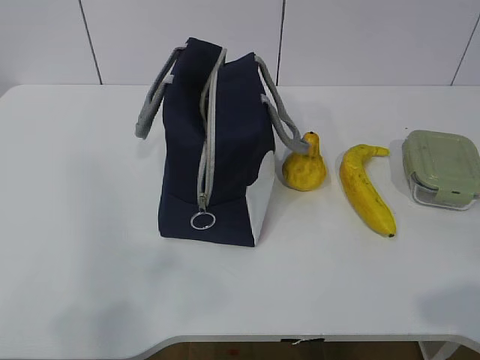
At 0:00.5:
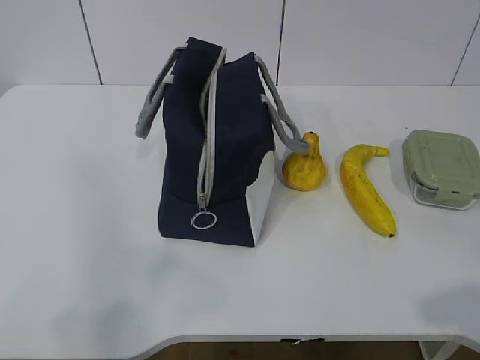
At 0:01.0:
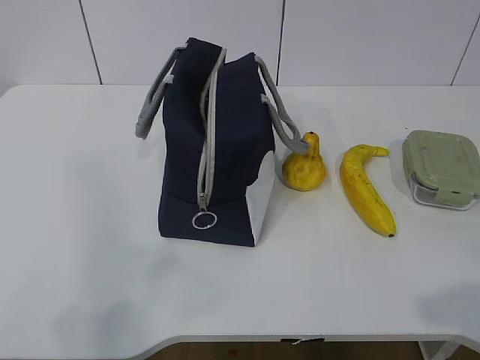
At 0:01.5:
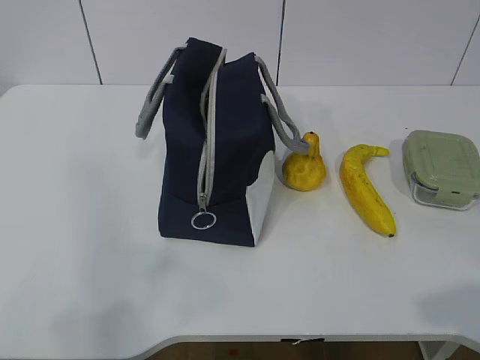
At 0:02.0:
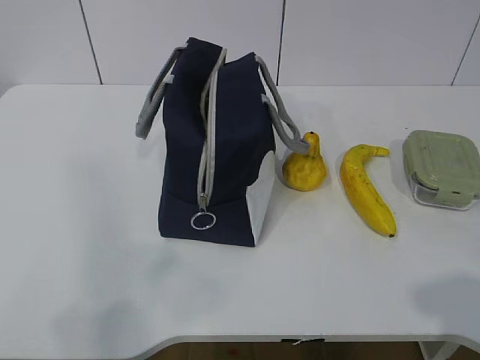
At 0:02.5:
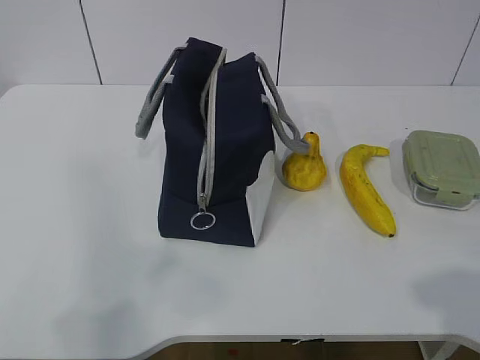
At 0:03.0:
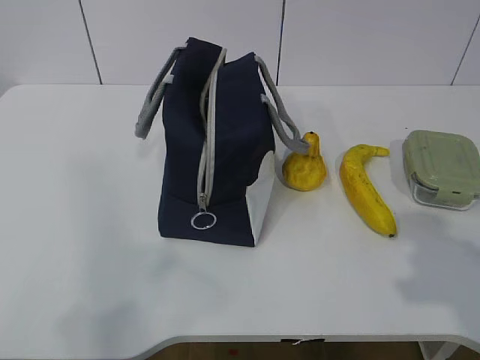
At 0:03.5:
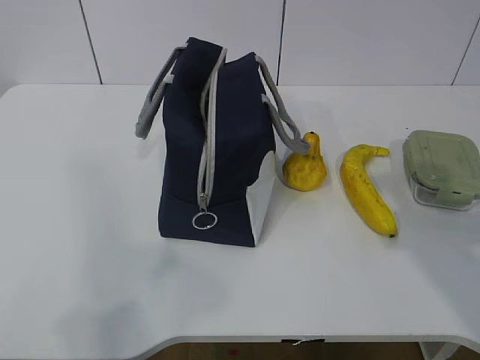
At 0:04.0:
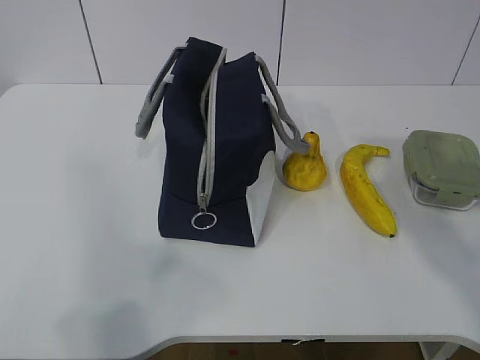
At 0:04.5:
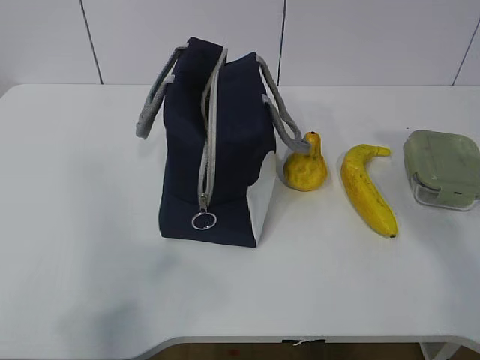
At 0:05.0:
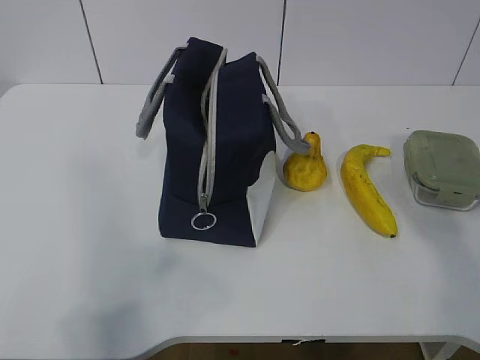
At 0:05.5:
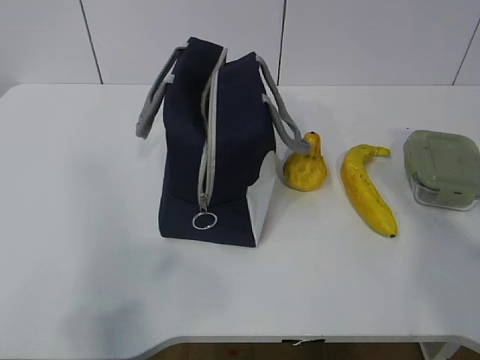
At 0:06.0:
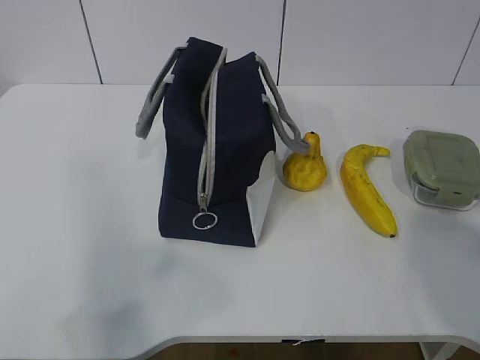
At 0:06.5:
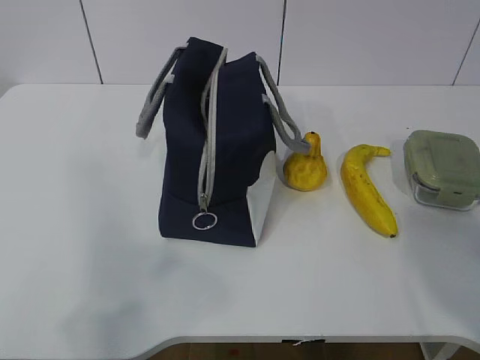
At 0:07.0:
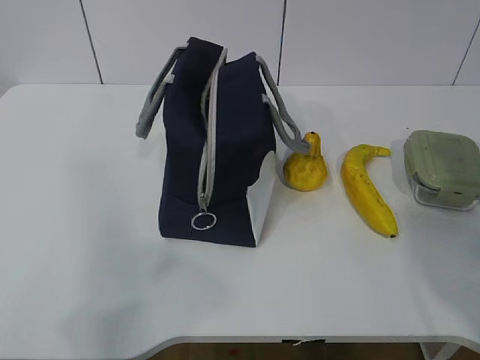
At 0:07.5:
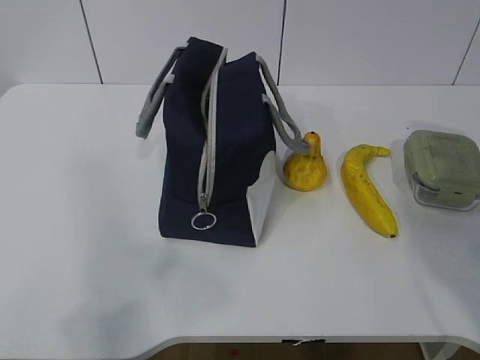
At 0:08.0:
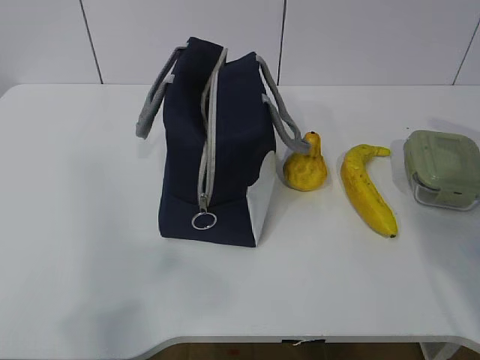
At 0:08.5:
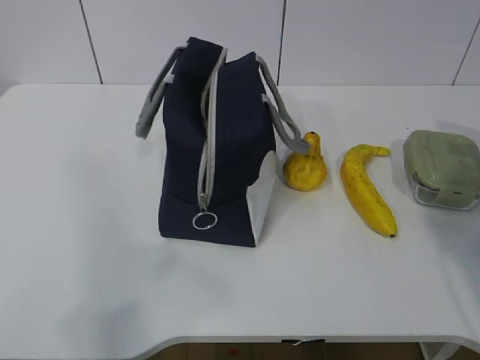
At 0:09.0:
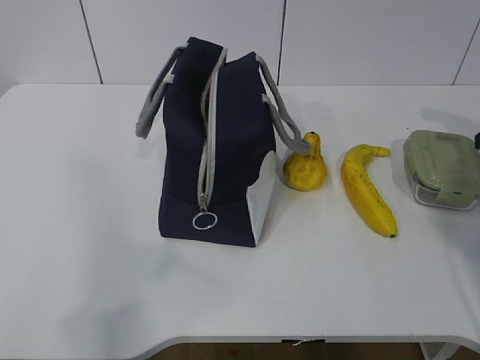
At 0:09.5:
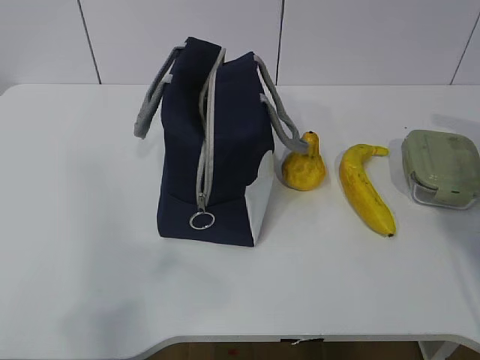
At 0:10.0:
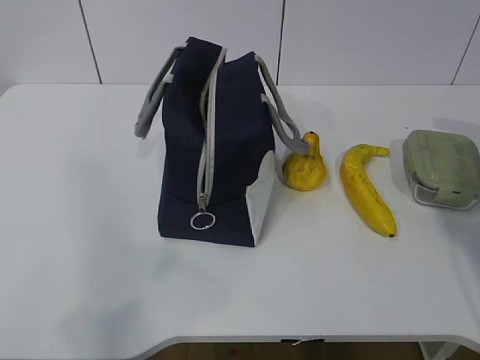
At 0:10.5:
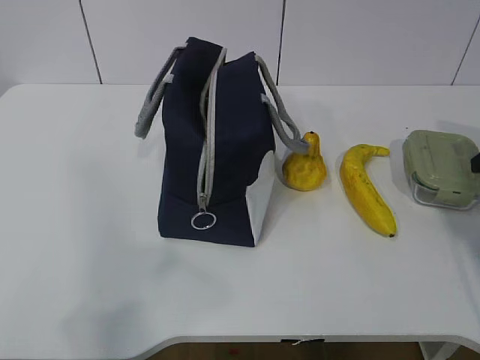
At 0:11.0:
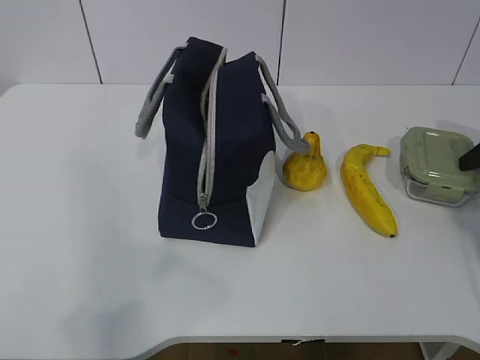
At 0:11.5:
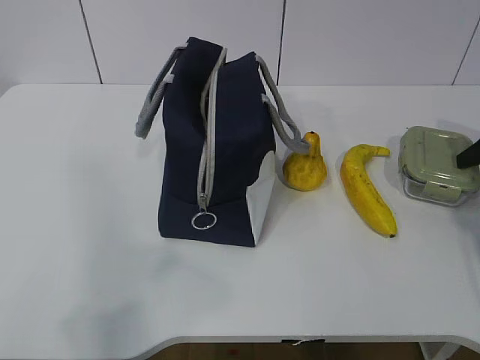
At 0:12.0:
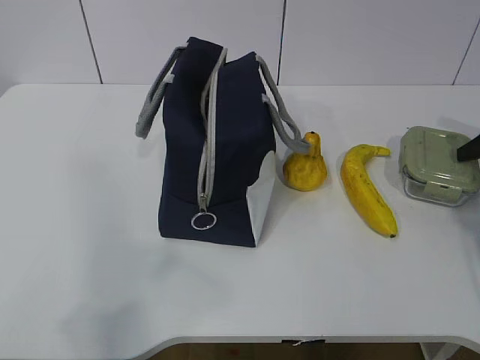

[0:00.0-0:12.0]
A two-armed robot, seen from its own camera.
0:02.0 to 0:04.0: The right gripper goes about 20 cm forward.
0:04.0 to 0:06.0: The right gripper heads forward, to the right and downward, covering about 10 cm.
0:08.0 to 0:10.0: The right gripper ends up roughly 5 cm from where it was.
0:10.0 to 0:12.0: There are only small adjustments of the grippers.

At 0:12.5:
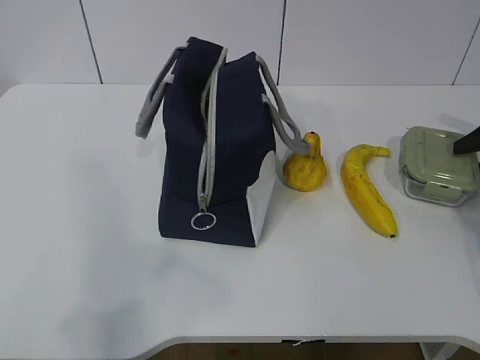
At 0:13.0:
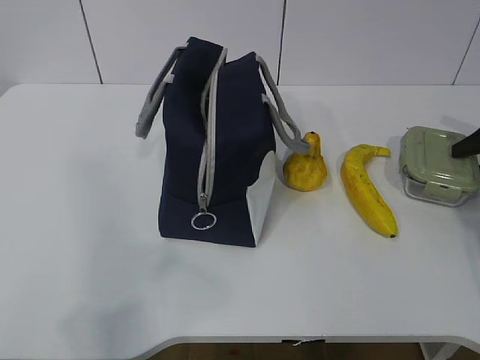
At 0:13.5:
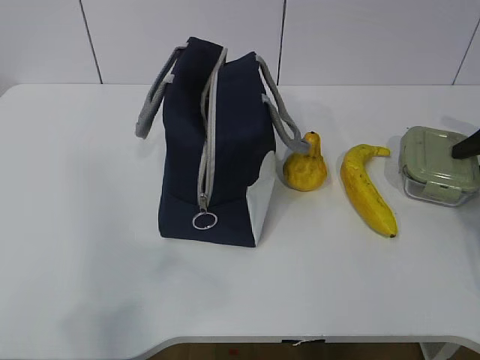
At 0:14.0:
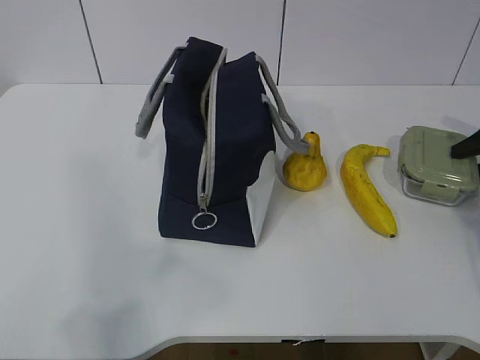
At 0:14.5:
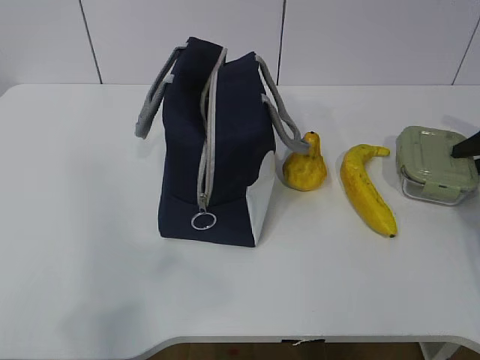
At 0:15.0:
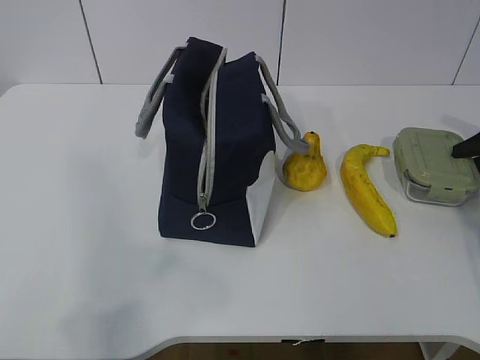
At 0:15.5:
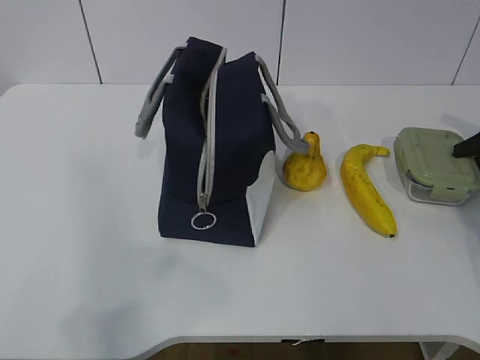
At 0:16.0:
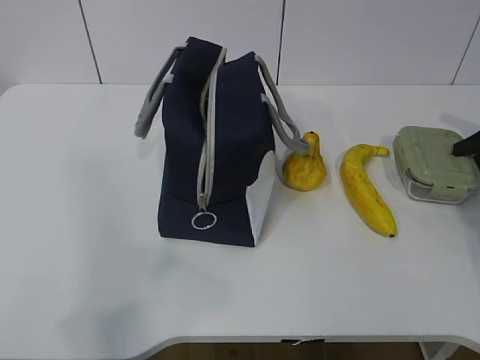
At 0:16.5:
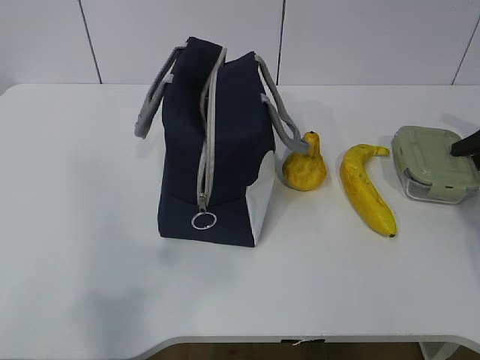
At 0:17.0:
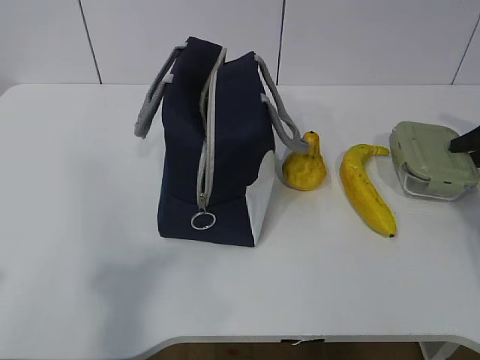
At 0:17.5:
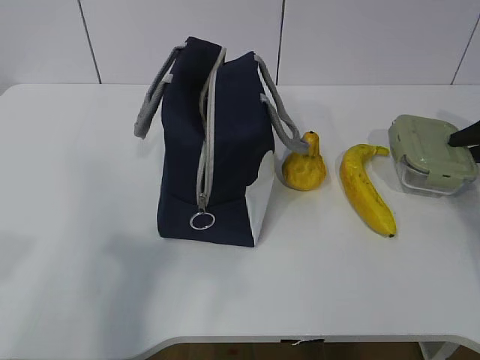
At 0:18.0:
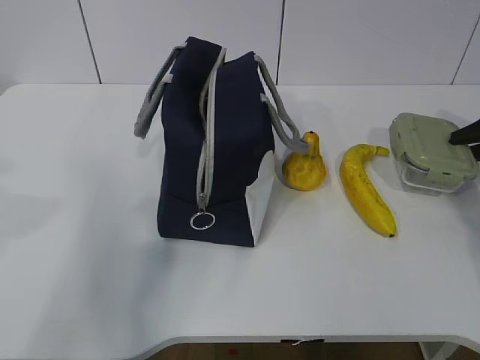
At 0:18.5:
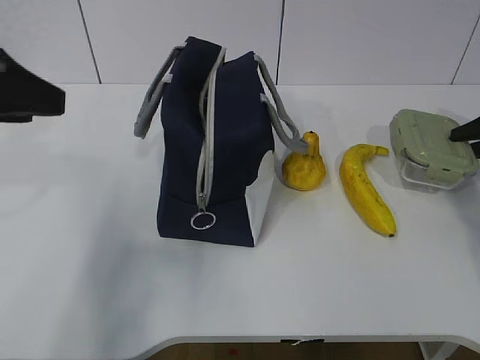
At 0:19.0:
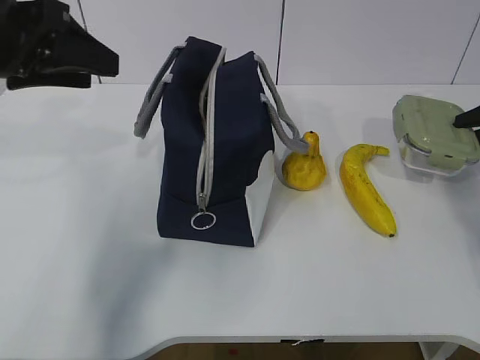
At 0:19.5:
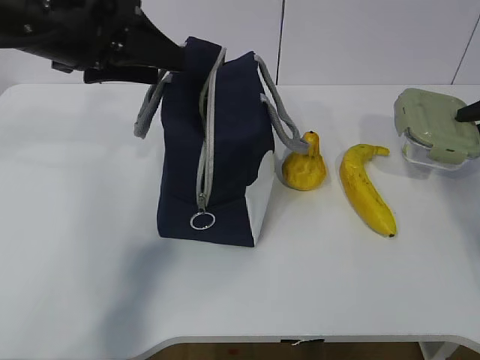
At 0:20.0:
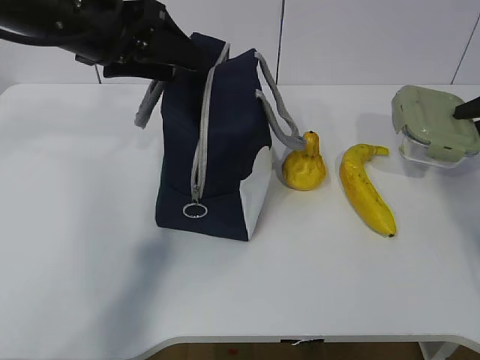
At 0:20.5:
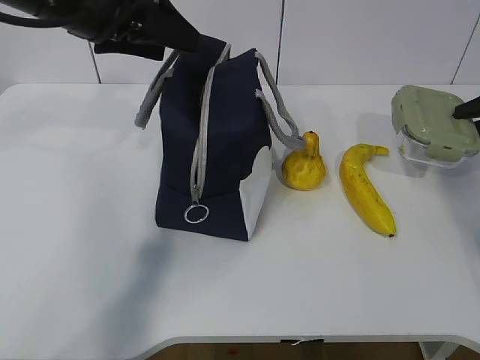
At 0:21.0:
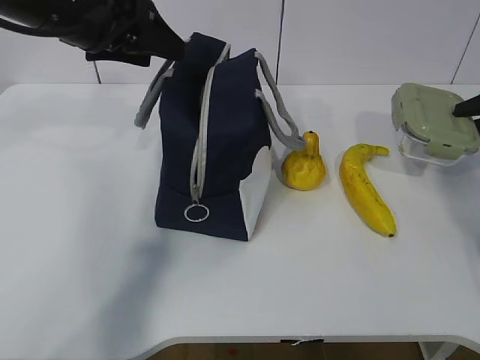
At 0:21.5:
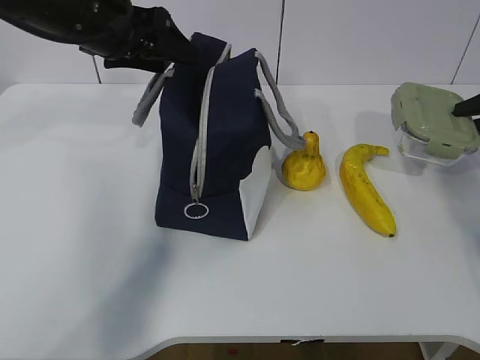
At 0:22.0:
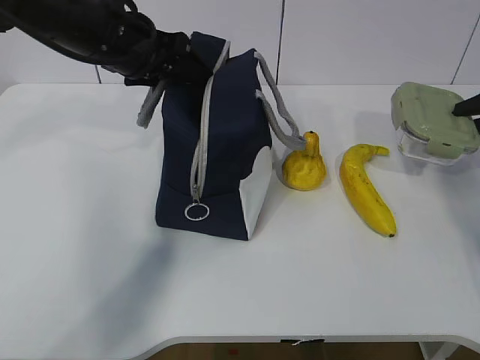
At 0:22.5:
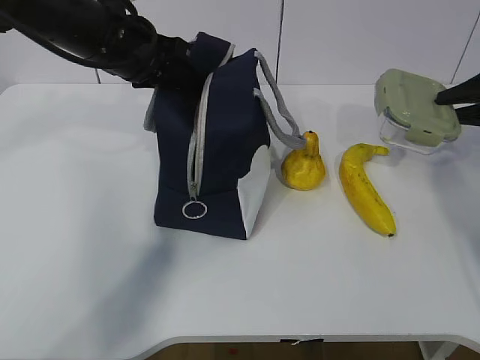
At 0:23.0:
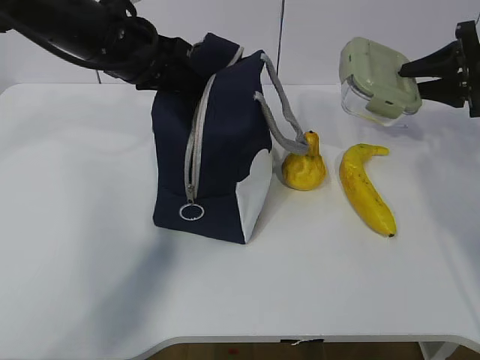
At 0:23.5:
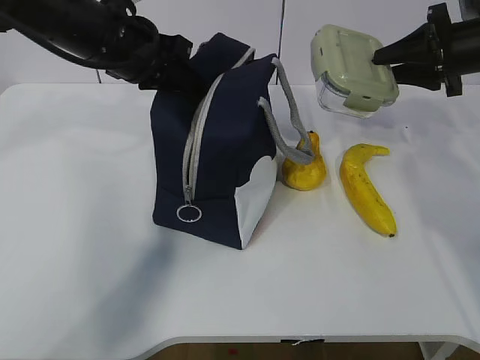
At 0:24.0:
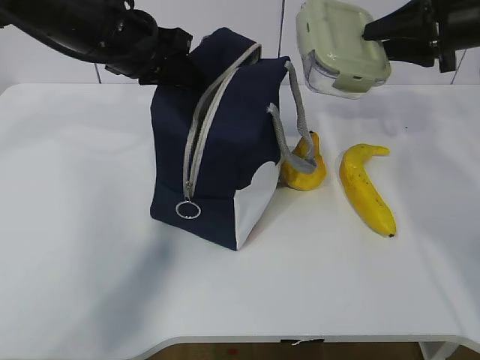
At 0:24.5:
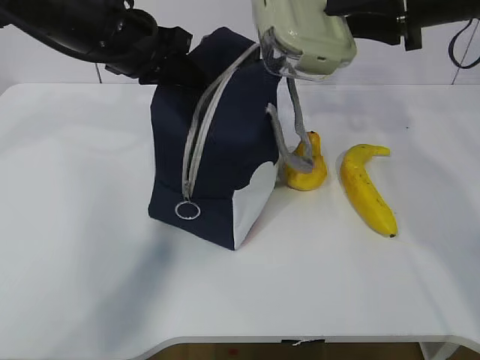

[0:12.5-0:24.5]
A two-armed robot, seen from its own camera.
Step, 0:14.5 to 0:21.0: Grab the lunch bag with your left hand.
0:12.5 to 0:14.5: Both grippers stay about where they are.
0:16.5 to 0:18.5: The left gripper goes about 20 cm forward.
0:18.5 to 0:20.5: The left gripper travels forward and to the right by approximately 15 cm.
0:20.5 to 0:22.5: The left gripper goes roughly 5 cm downward, and closes its fingers.
0:22.5 to 0:24.5: The right gripper moves to the left and upward, roughly 20 cm.

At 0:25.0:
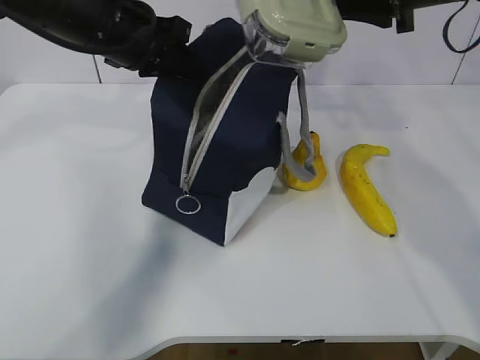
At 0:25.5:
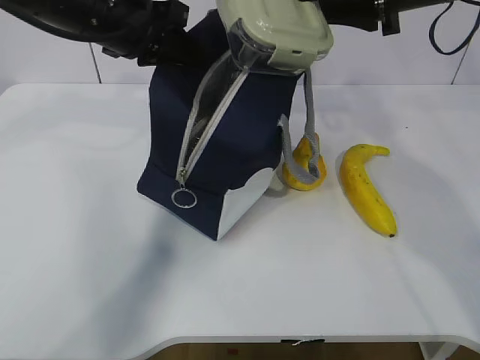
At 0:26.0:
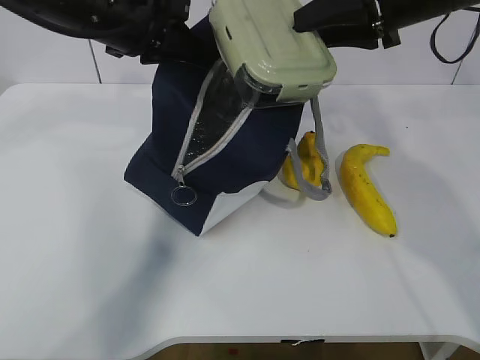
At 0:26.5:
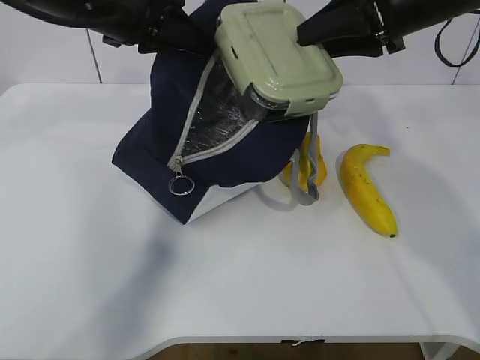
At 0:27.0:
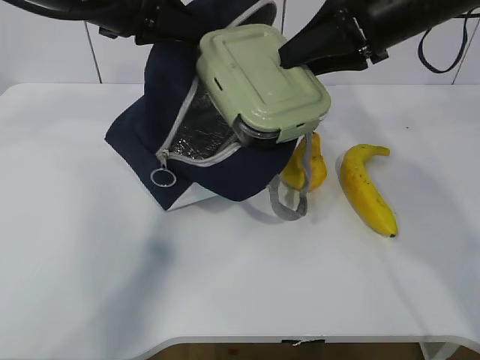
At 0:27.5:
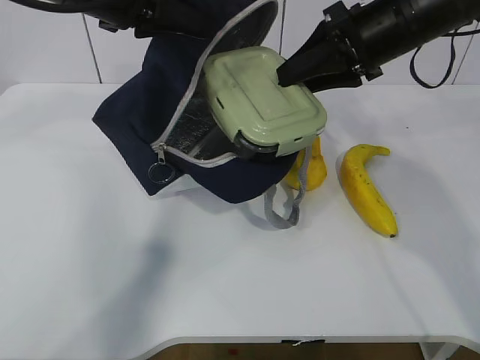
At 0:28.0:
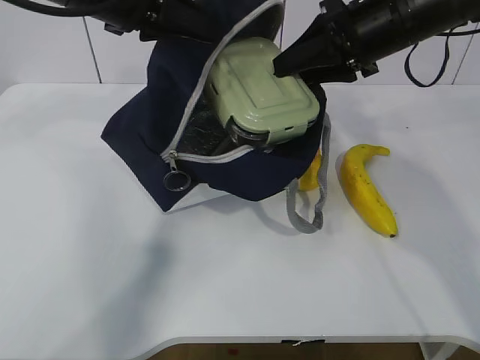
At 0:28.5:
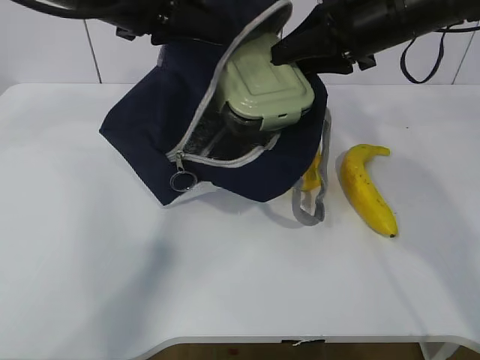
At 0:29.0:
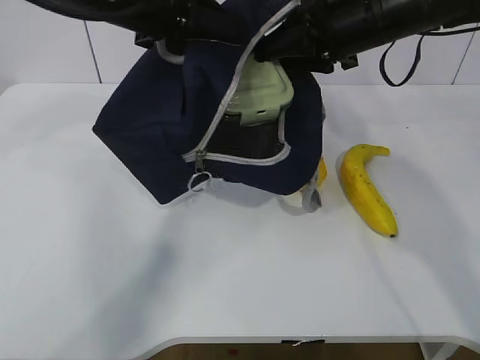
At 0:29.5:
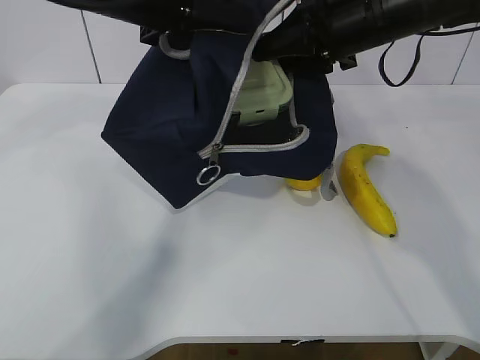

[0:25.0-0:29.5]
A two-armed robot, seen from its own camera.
Step, 0:25.0 to 0:28.0: Place it into the bag with your right hand.
0:25.0 to 0:27.0: The right gripper moves approximately 5 cm.
0:27.0 to 0:29.5: The grippers move only a little.
